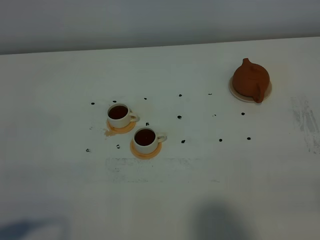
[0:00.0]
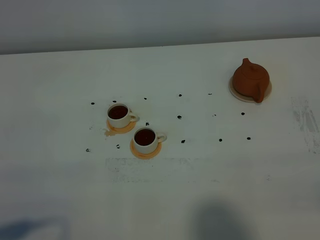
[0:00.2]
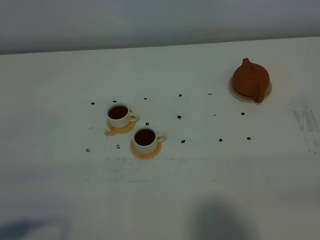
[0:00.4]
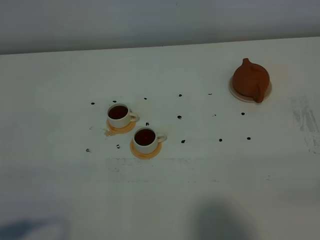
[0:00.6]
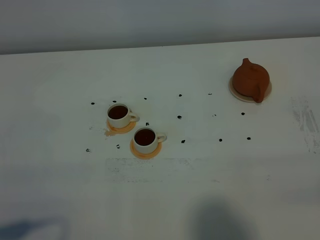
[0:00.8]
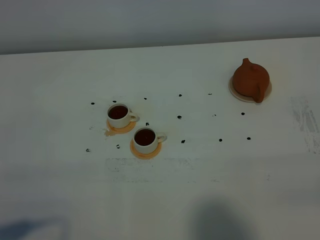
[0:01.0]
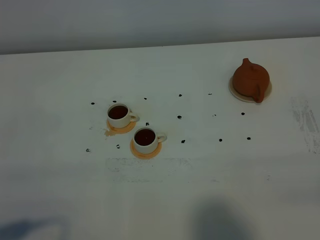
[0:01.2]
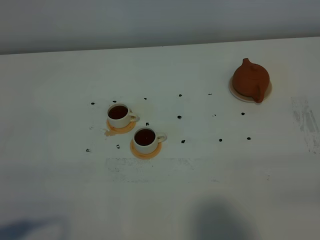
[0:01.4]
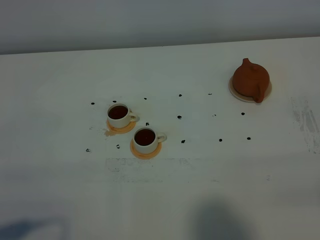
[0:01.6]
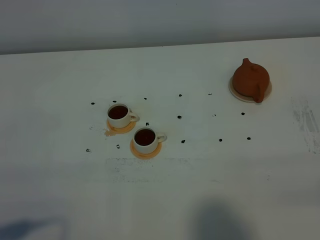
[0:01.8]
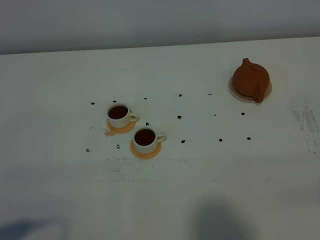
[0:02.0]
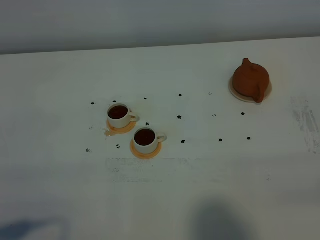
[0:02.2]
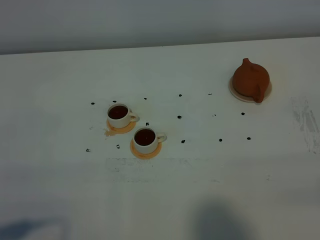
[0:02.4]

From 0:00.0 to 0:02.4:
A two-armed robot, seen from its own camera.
Task of the whole recording: grasp the brown teapot and pour the tea into the two white teacups one by one, put the brown teapot back in its original place.
From 0:01.2 to 0:02.4: Both grippers stay about where they are.

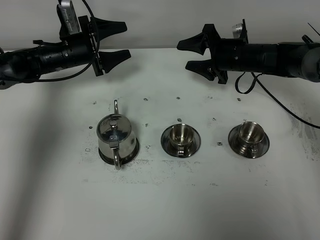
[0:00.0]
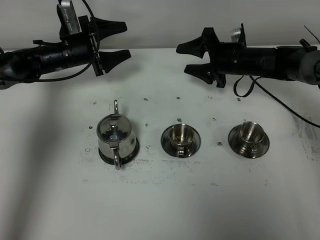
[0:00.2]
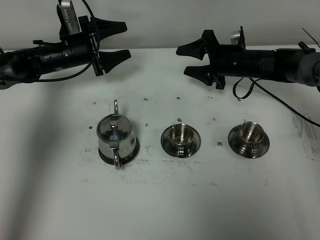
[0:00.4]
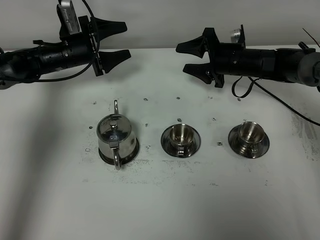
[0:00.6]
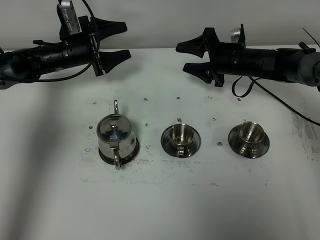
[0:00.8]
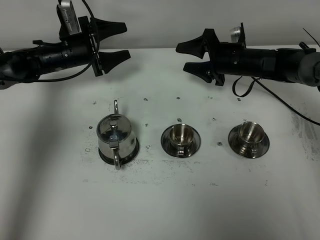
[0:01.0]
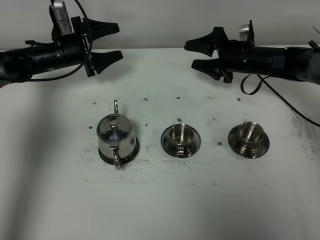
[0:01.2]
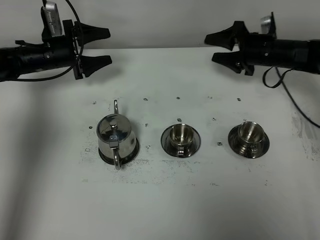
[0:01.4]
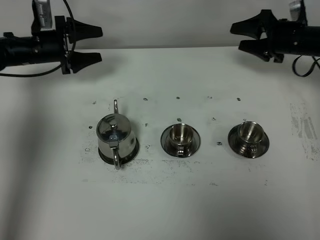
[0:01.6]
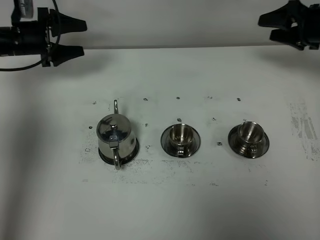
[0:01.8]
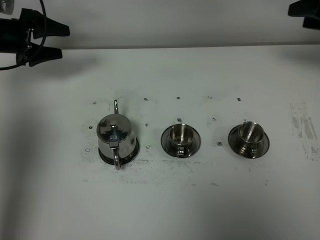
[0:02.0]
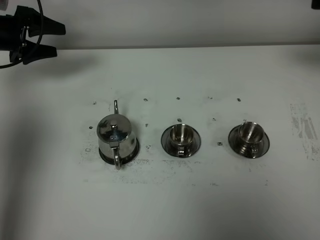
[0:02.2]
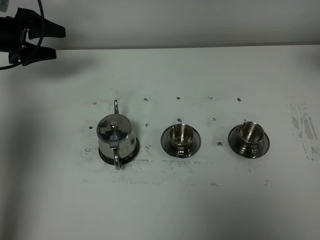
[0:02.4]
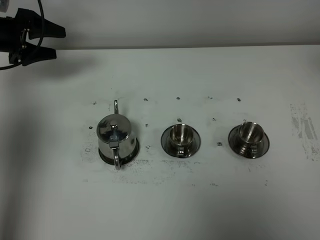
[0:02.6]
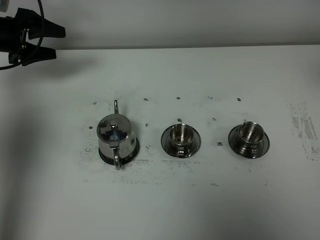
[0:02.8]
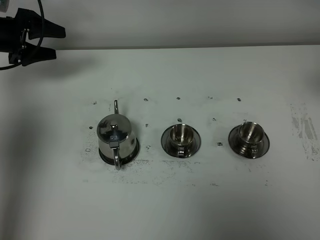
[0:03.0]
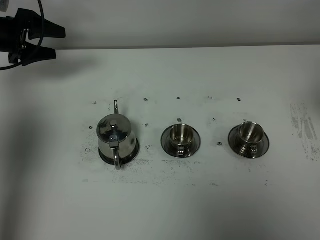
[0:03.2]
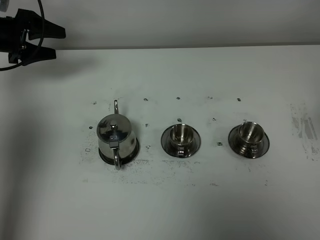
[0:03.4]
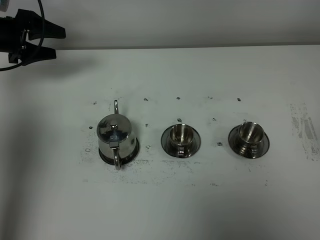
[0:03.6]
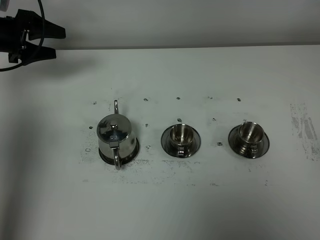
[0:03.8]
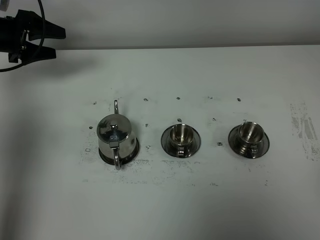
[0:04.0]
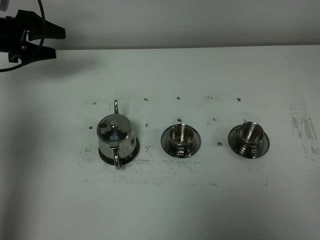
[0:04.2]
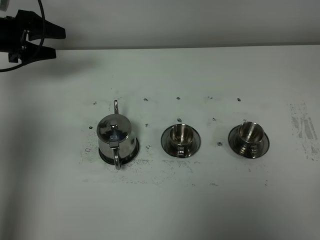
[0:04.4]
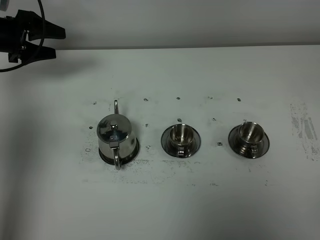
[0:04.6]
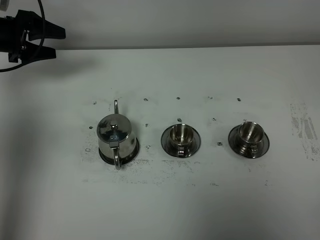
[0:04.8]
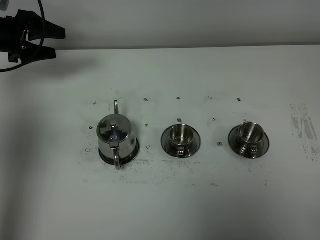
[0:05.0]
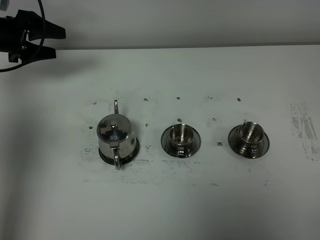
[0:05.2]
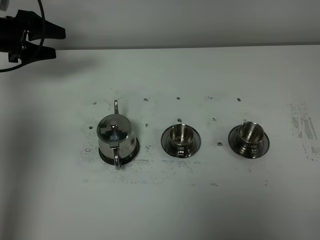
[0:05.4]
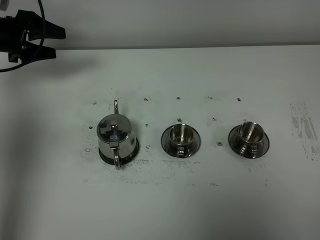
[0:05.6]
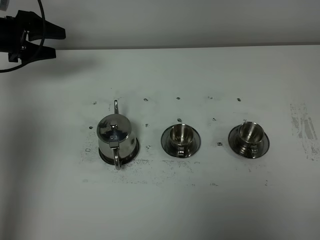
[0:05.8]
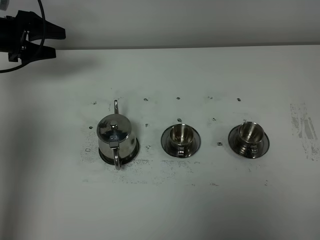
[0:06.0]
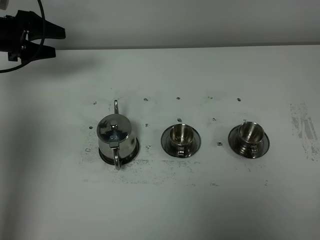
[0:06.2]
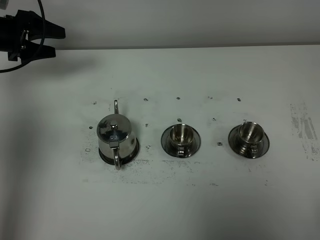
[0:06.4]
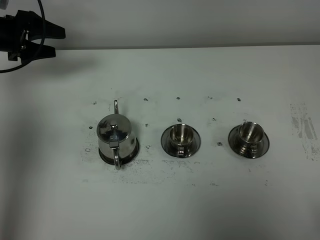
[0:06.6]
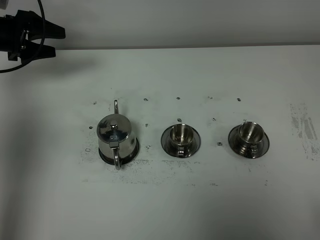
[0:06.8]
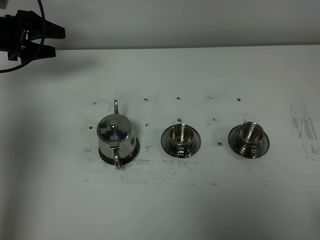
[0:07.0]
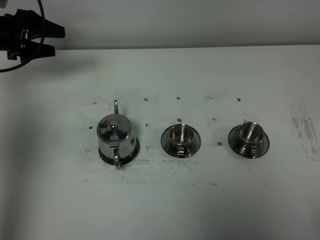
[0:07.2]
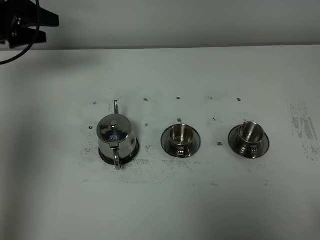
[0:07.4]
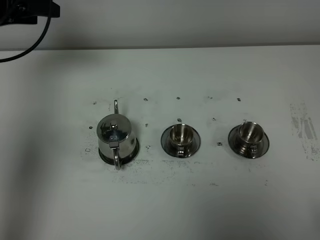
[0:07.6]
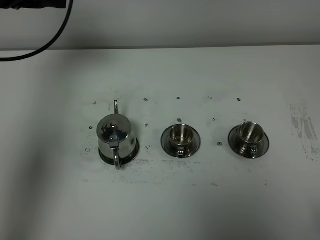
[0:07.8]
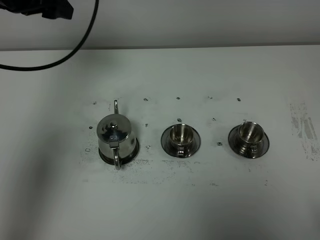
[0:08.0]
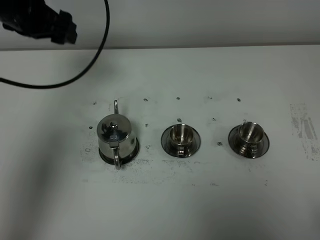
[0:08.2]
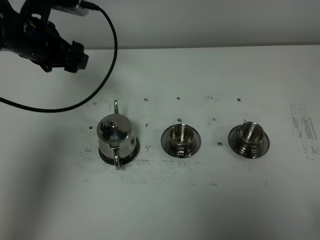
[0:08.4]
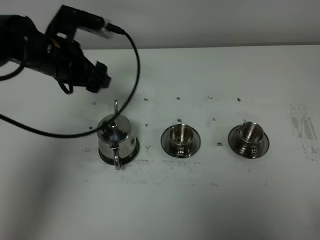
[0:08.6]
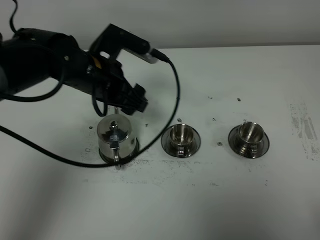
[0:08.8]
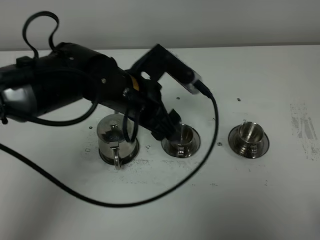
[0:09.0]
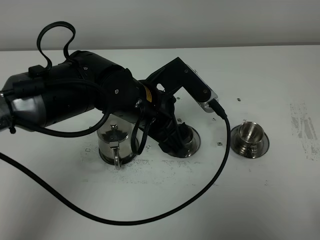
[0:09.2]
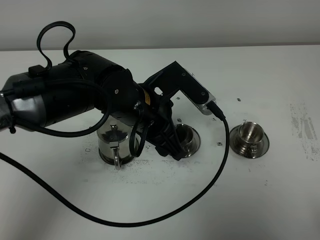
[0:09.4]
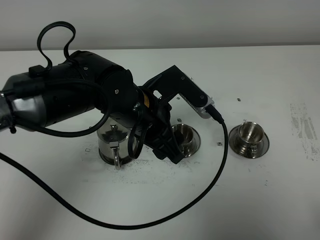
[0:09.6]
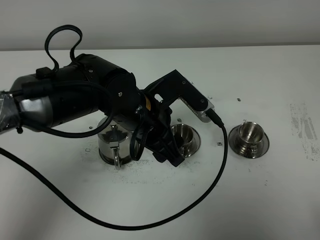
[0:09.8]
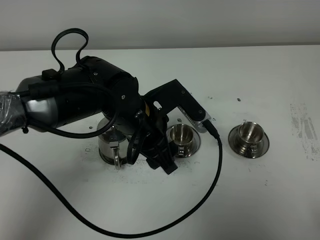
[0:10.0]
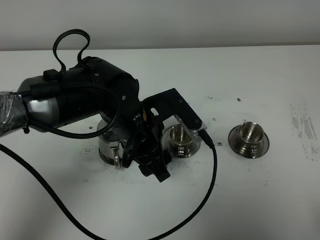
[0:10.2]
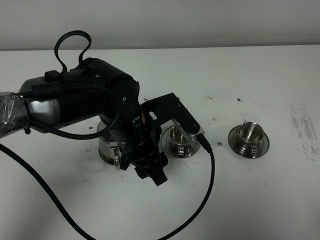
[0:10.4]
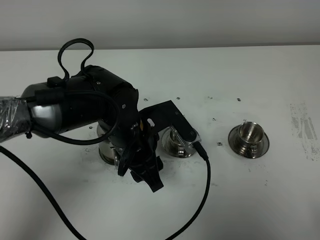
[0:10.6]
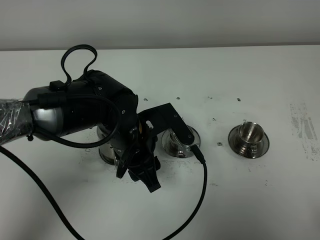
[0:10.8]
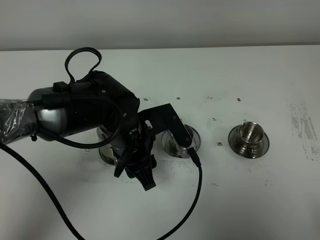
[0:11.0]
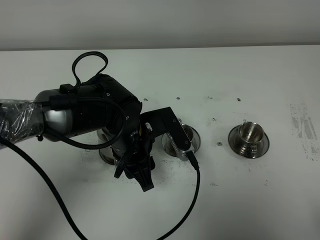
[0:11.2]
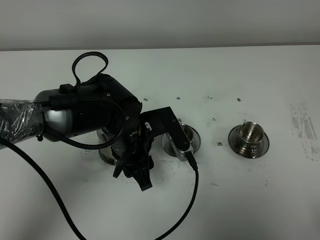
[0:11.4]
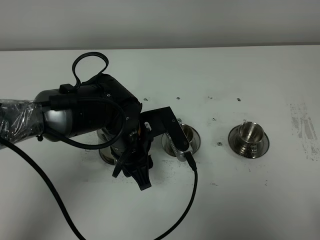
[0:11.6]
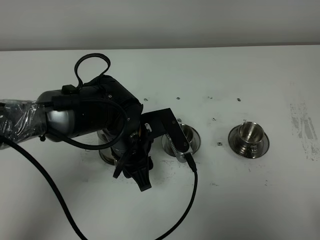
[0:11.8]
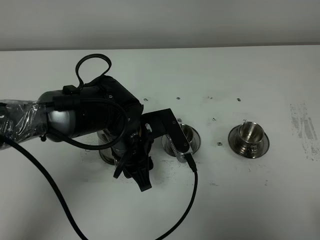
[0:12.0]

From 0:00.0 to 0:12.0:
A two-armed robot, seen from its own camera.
Task of the whole recording: grasp the stainless steel teapot and pour the tea into the two stainless steel teacups one by one, put the stainless steel teapot back in its original place.
From 0:00.0 to 0:01.6: The left gripper shifts about 5 cm to the left; the right gripper goes roughly 10 cm to the right.
From 0:01.6 to 0:03.0: The left gripper is displaced to the left and upward by approximately 10 cm. Meanwhile the right gripper moves backward and upward, about 30 cm.
From 0:06.0 to 0:07.6: The left gripper heads upward, covering some 10 cm.
From 0:07.6 to 0:09.0: The left gripper is displaced to the right and backward by some 30 cm.
From 0:10.4 to 0:12.0: There are only small adjustments of the grippers.

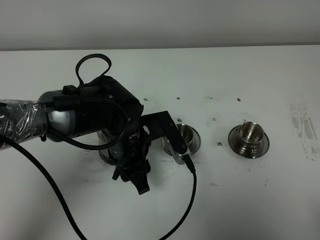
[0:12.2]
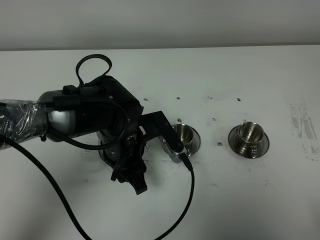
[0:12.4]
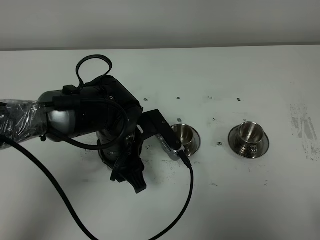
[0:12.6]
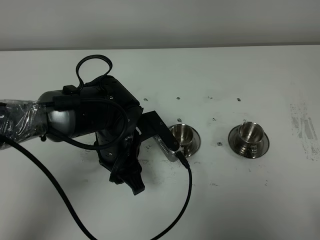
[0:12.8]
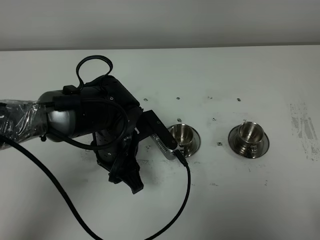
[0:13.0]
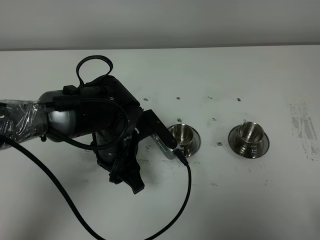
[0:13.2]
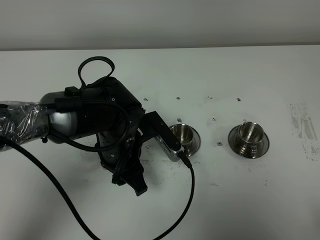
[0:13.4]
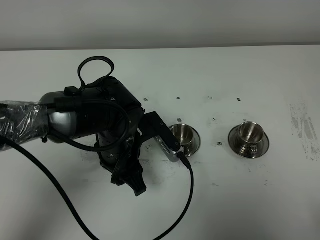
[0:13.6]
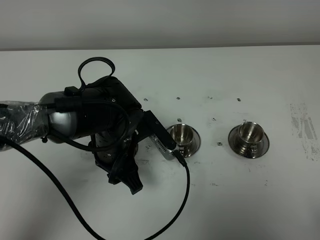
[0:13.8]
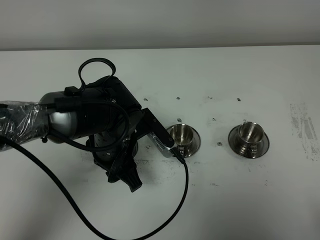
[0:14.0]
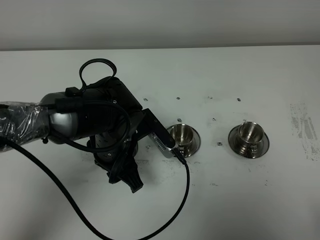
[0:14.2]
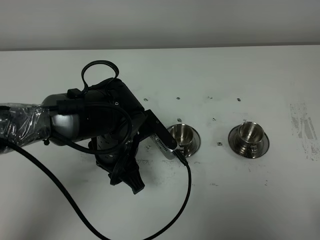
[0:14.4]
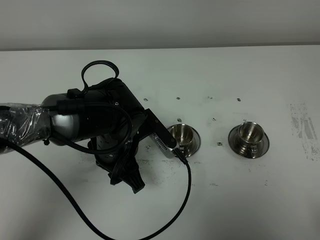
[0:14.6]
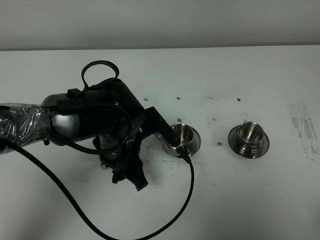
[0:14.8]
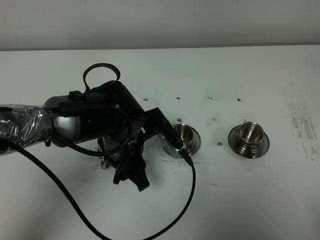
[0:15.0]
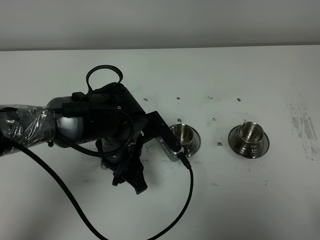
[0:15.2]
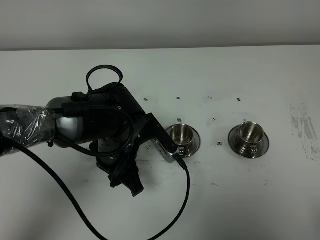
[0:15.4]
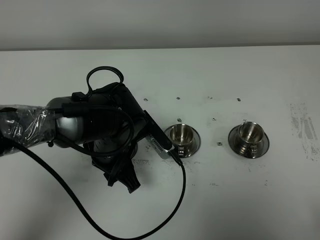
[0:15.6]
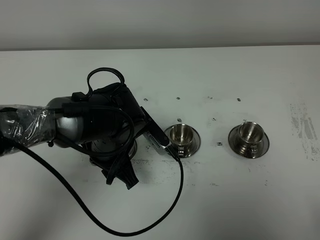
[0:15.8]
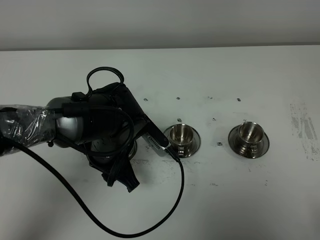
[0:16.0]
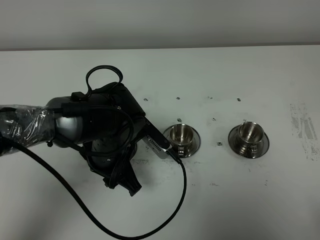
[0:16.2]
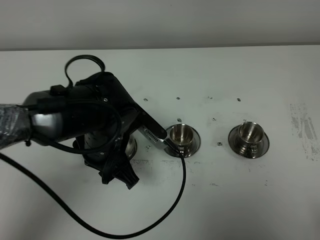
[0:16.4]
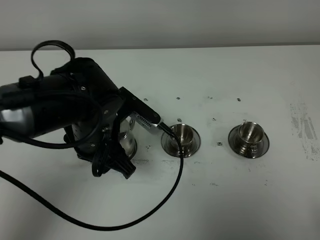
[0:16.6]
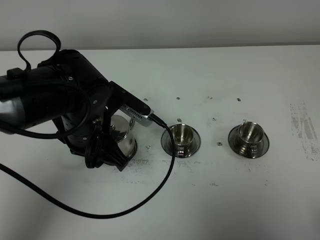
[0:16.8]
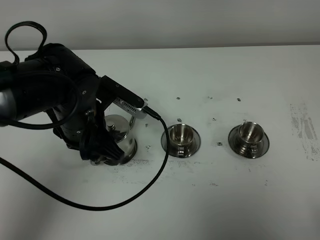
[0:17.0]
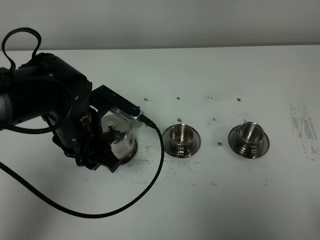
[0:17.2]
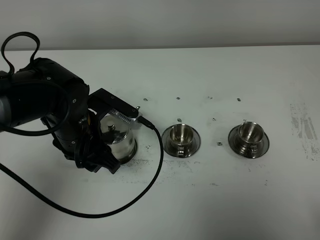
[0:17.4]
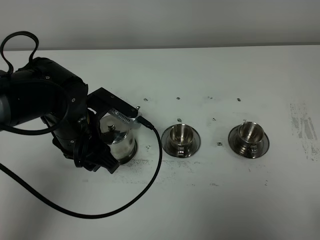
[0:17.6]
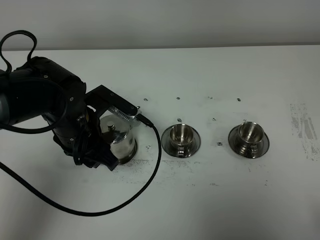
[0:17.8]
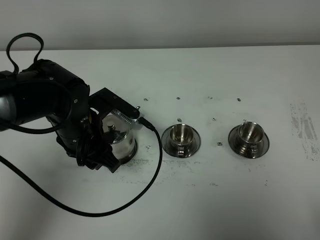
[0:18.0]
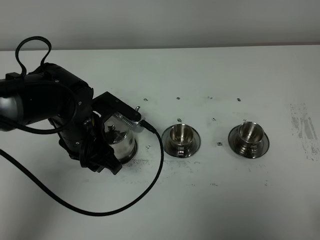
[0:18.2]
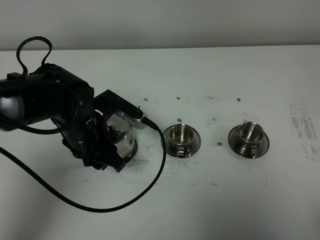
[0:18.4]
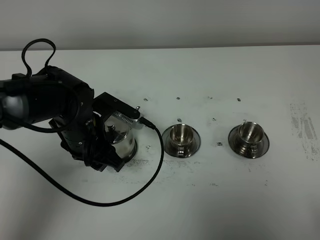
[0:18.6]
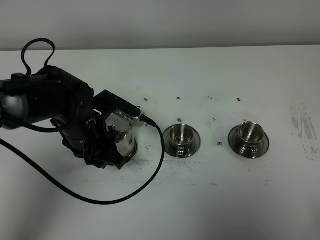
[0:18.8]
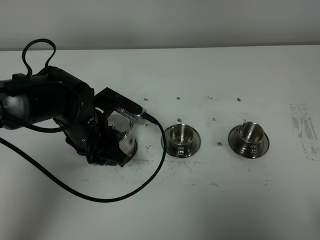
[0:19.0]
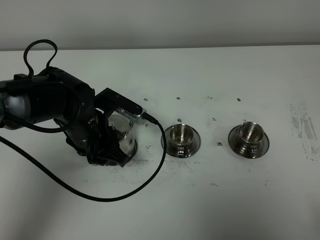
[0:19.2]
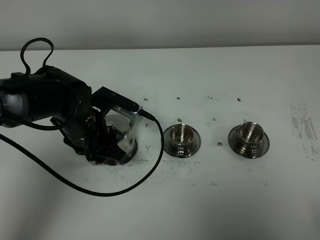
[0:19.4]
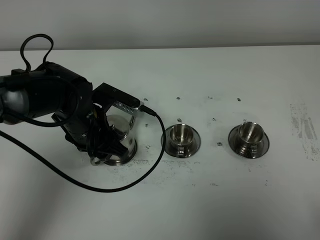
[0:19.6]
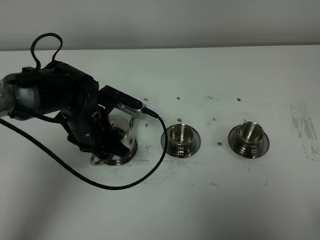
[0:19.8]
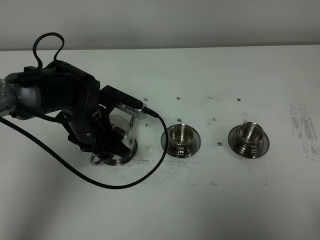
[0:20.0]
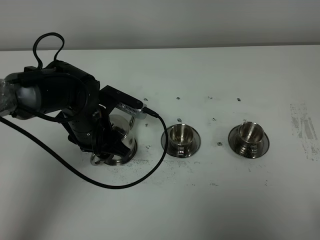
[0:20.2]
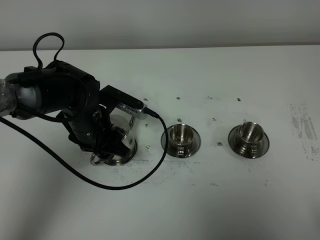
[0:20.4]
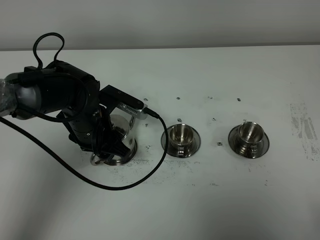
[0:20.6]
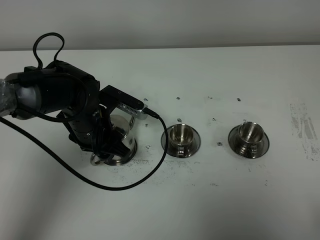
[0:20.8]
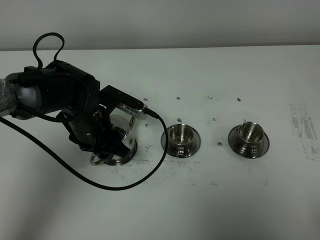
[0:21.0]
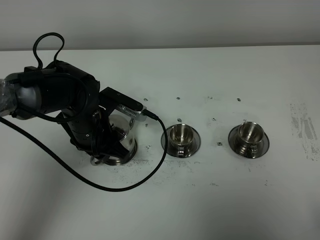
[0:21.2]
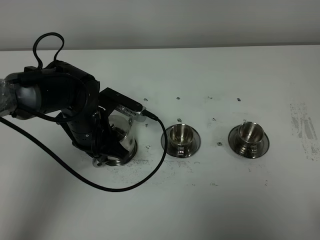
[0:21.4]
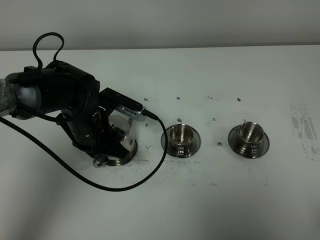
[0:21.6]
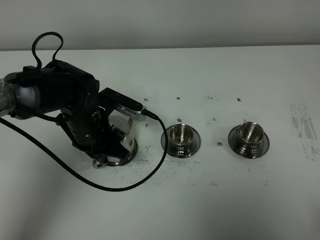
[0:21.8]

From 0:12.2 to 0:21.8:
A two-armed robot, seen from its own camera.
Task of the whole recording: grasp the stainless steel teapot and pour the tea into the two stainless steel teacups one by one, put the stainless steel teapot back in its original place.
From 0:12.2 to 0:15.4: The grippers make only small movements.
From 0:15.4 to 0:17.0: The left gripper goes approximately 5 cm upward.
From 0:17.0 to 0:18.6: The left gripper travels downward by some 5 cm.
From 0:18.6 to 0:20.2: There are only small adjustments of the grippers.
From 0:20.2 to 0:21.8: The left gripper closes up.
